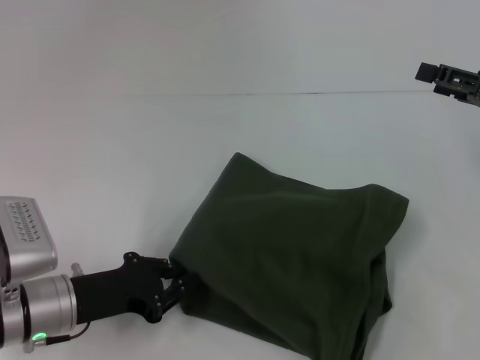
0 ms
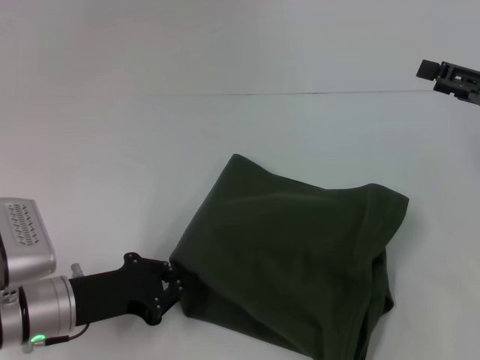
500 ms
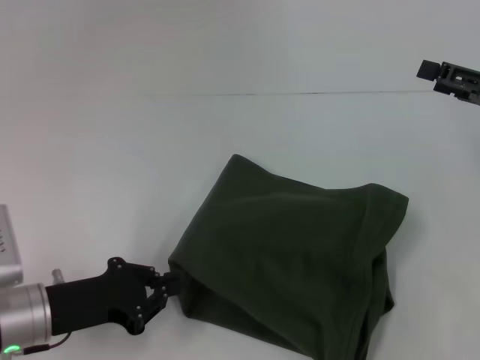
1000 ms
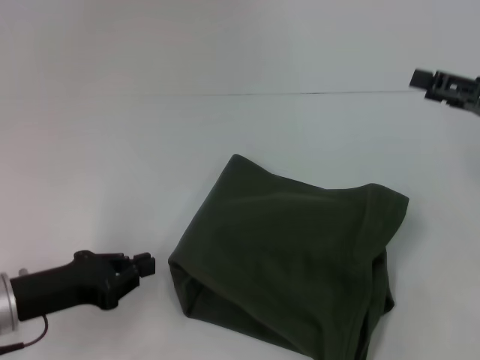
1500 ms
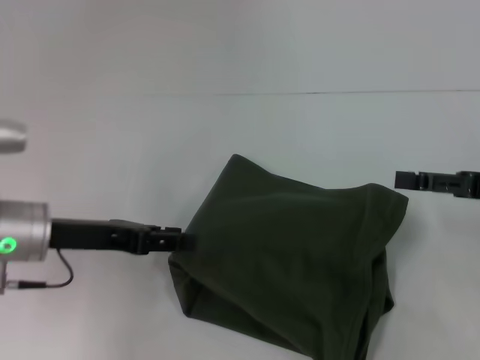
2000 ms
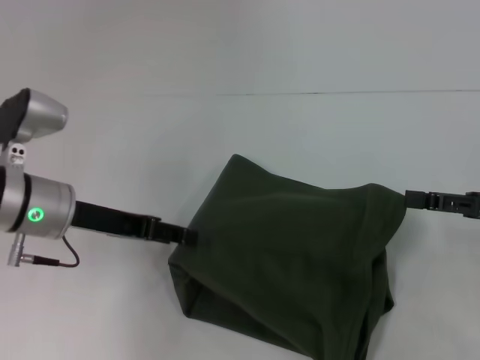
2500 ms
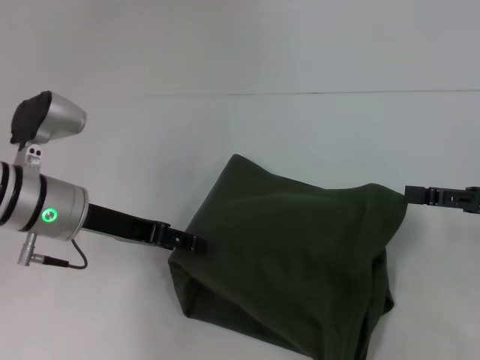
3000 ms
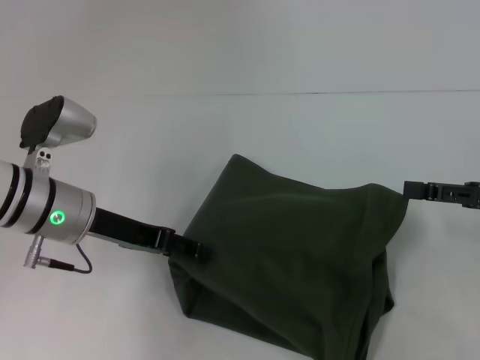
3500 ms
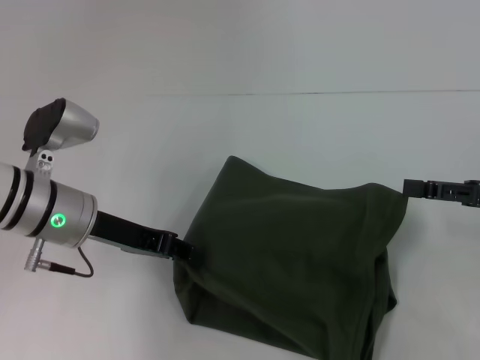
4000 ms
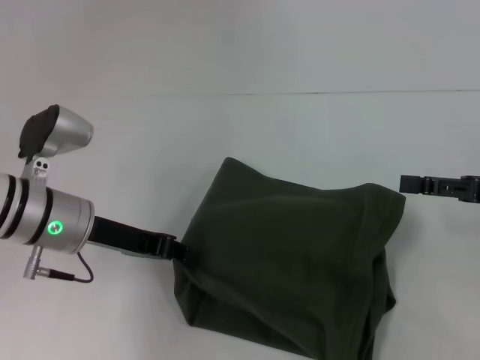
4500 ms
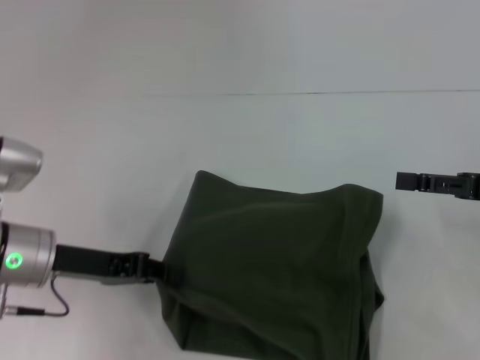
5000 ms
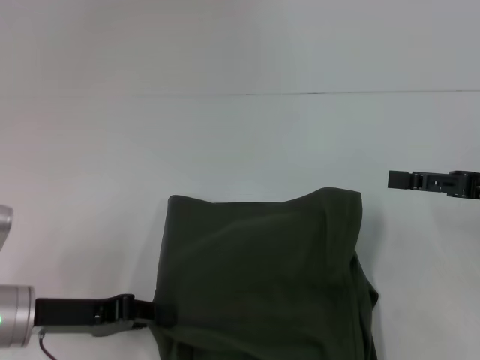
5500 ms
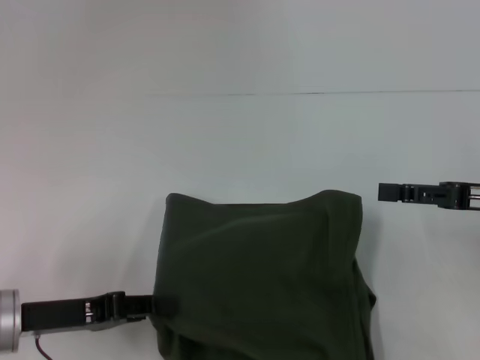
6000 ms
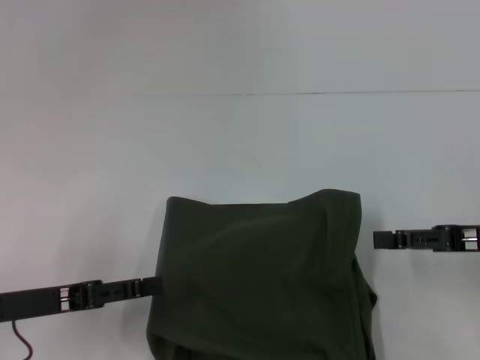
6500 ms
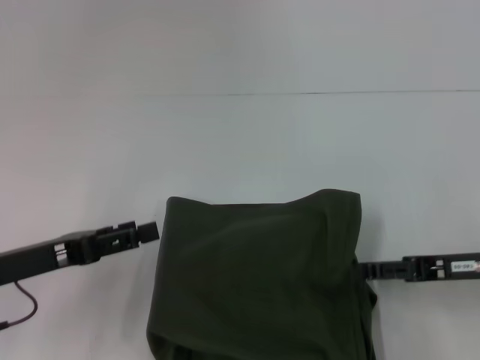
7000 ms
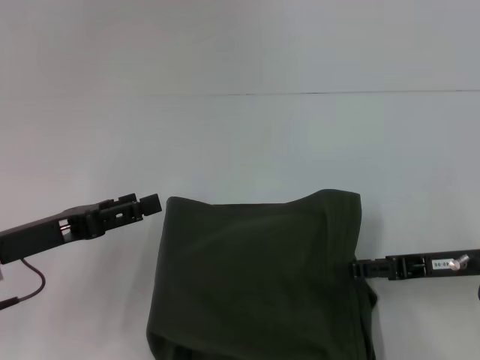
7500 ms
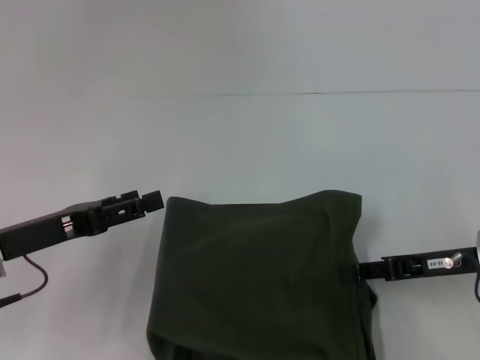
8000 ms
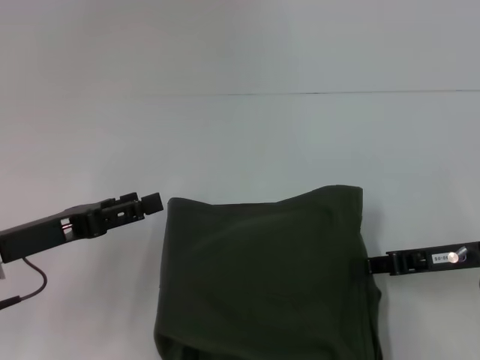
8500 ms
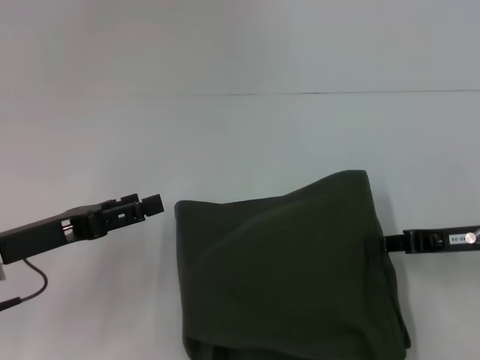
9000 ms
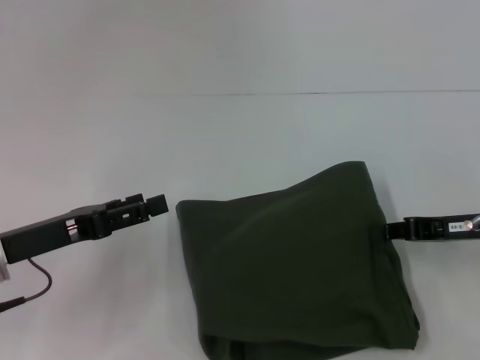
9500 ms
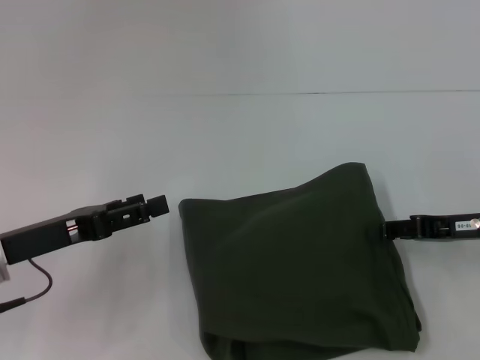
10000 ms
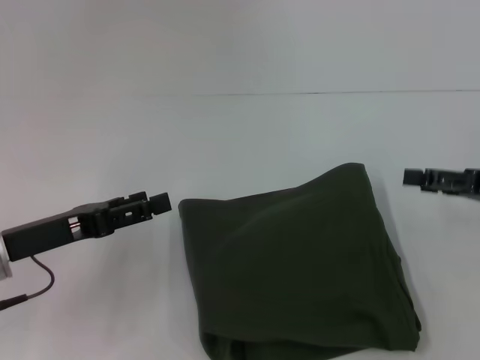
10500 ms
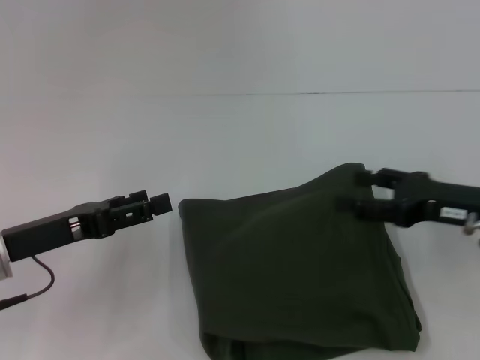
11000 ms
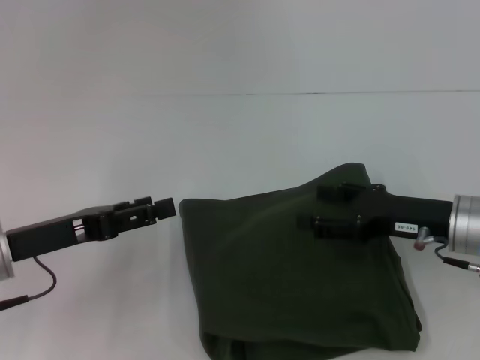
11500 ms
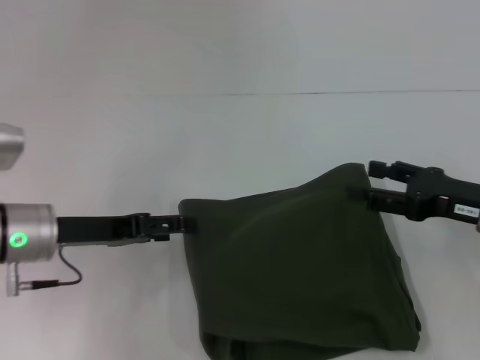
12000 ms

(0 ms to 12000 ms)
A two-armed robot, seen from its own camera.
0 ms - 2000 ms: The left gripper shifts roughly 10 cm upward and forward; the right gripper moves about 5 cm.
2000 ms - 4000 ms: The left gripper opens, then closes again.
4000 ms - 6000 ms: The left gripper heads backward and to the left, covering approximately 10 cm.
6000 ms - 8000 ms: The right gripper is displaced downward by some 5 cm. Meanwhile the left gripper opens its fingers.
8000 ms - 10000 ms: There are only small adjustments of the grippers.
10000 ms - 12000 ms: The left gripper shifts by some 5 cm; the right gripper swings left and right, approximately 10 cm each way, with 2 reversals, and opens up.

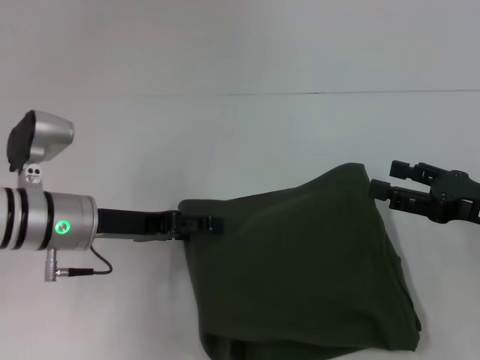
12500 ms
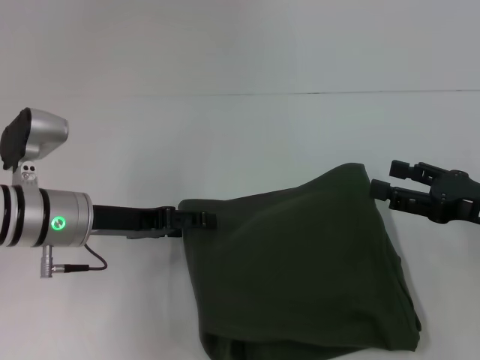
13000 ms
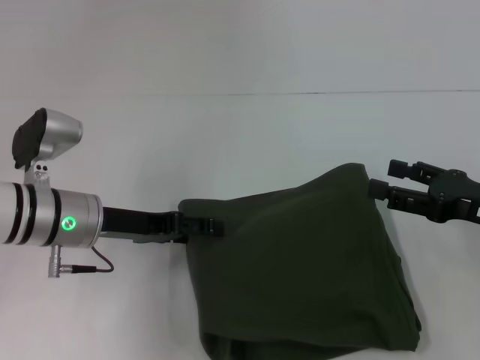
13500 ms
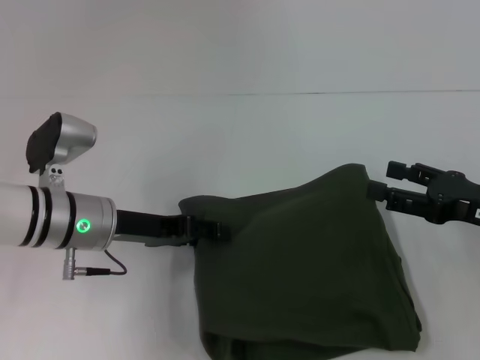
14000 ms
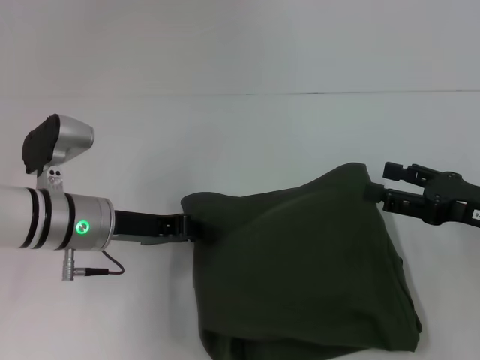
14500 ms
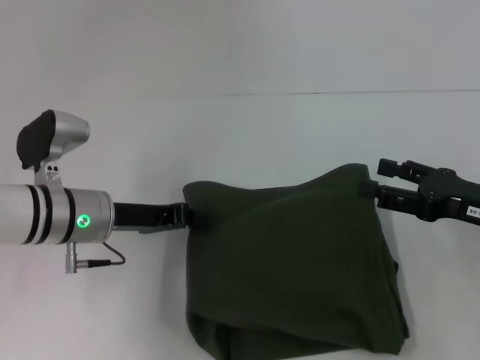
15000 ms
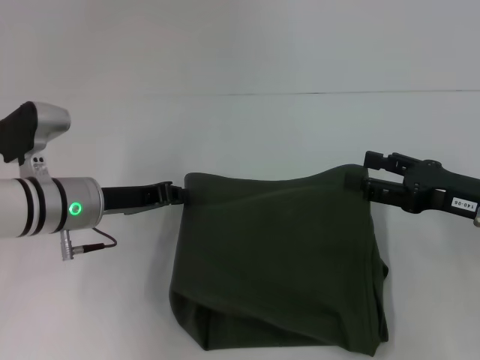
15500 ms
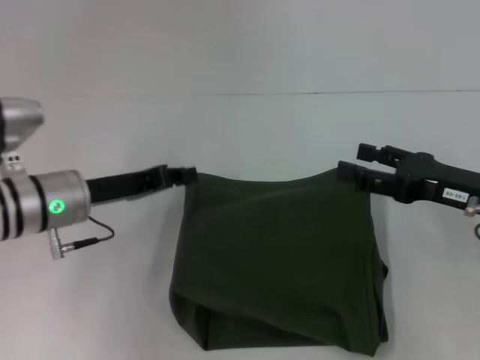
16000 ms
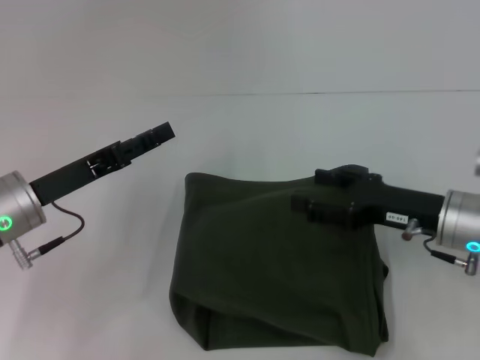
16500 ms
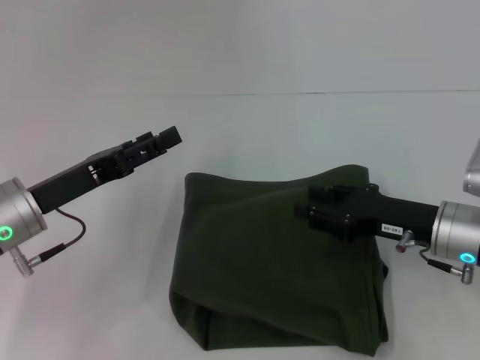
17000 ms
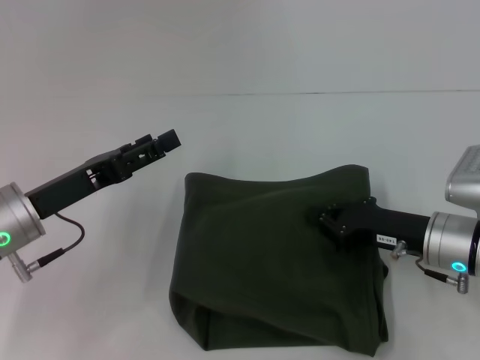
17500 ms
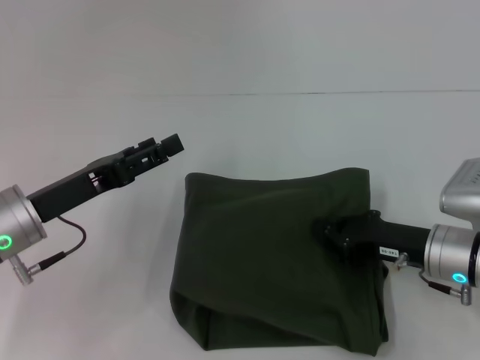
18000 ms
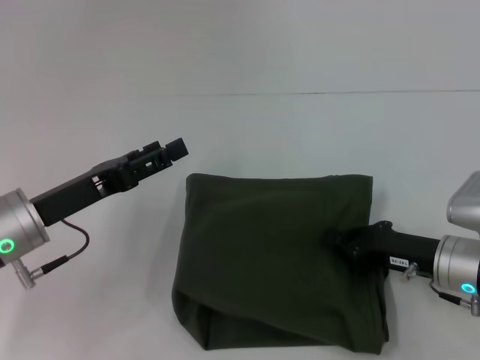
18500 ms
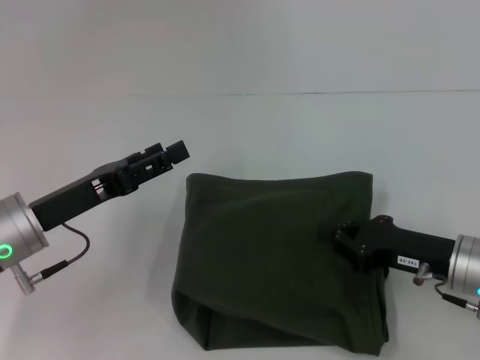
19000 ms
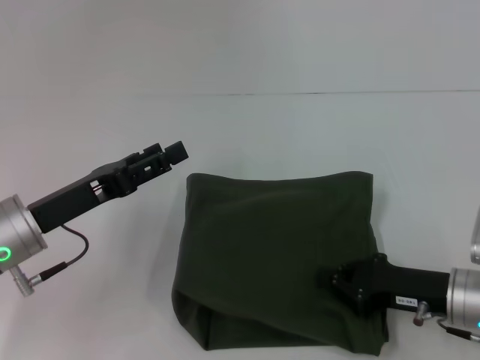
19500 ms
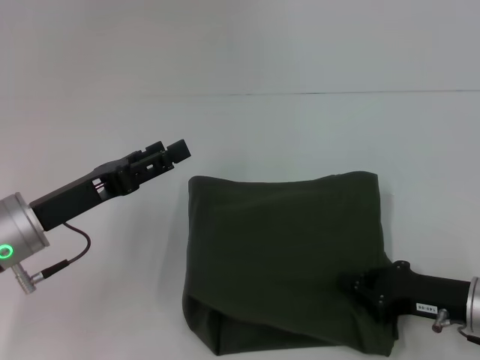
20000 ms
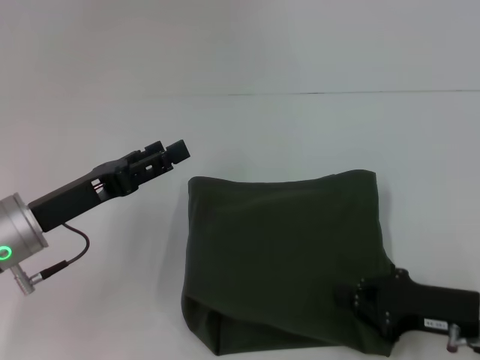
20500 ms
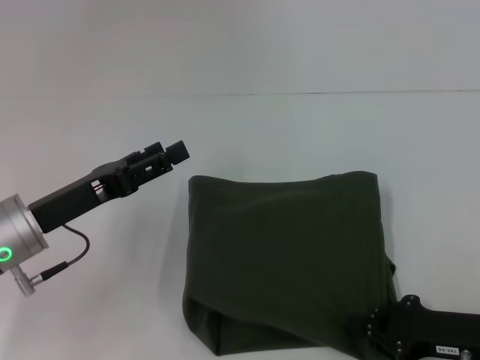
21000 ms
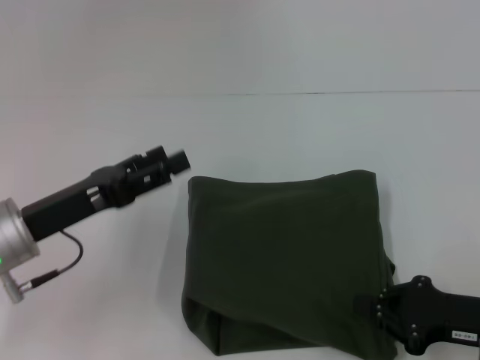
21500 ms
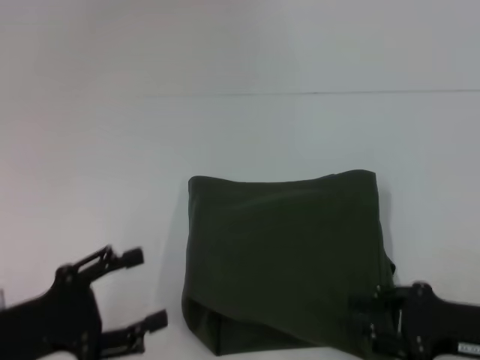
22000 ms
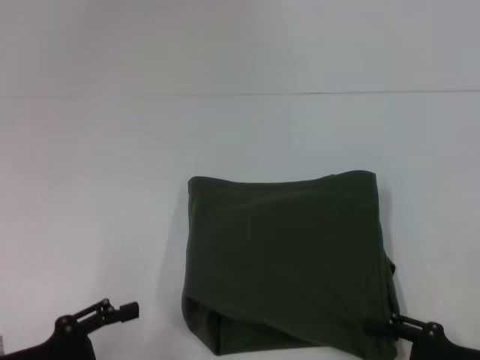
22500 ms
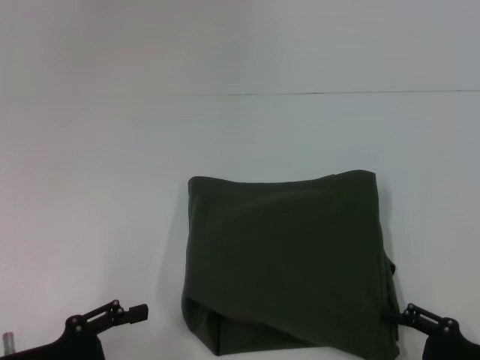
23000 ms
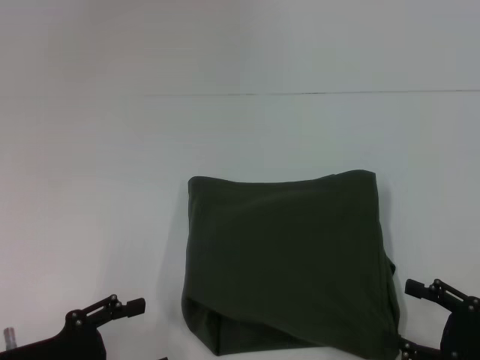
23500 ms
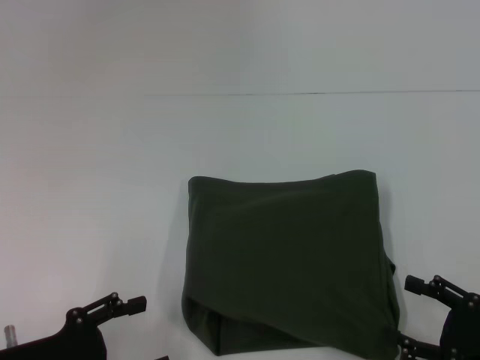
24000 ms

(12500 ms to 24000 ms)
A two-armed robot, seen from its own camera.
12500 ms - 14500 ms: The left gripper closes up.
14500 ms - 16500 ms: The two grippers go some 5 cm to the left.
16500 ms - 18500 ms: The right gripper shifts by some 5 cm, and closes its fingers, while the left gripper opens.
18500 ms - 20000 ms: There are only small adjustments of the grippers.
20000 ms - 22000 ms: The right gripper ends up about 5 cm from where it was. Meanwhile the left gripper heads backward, covering some 10 cm.
22000 ms - 24000 ms: The right gripper ends up some 5 cm from where it was, and opens its fingers.

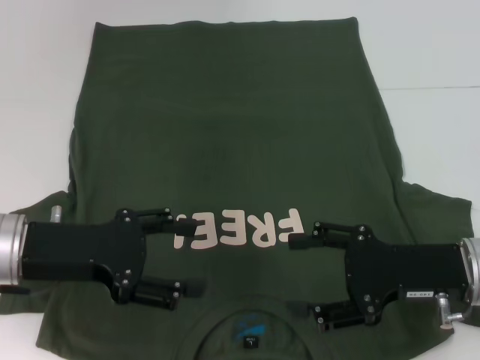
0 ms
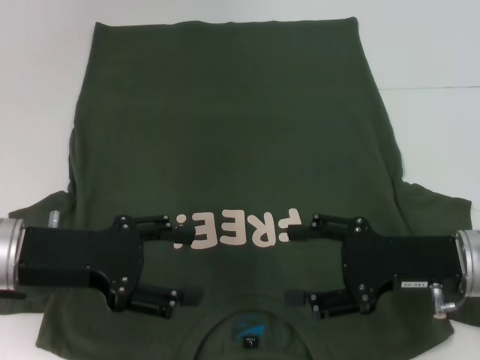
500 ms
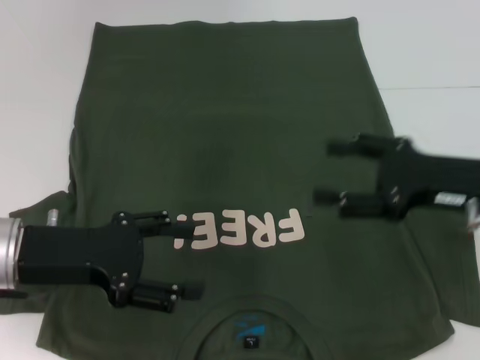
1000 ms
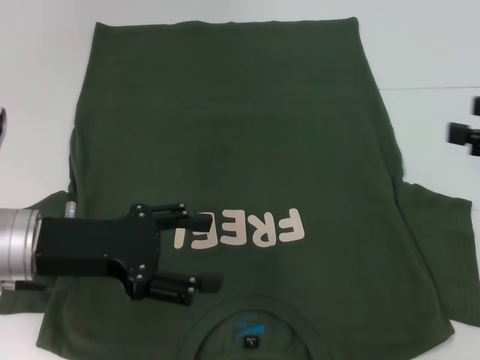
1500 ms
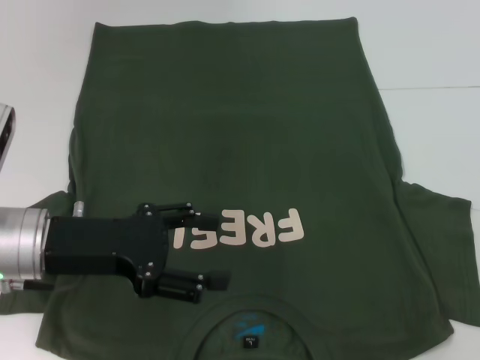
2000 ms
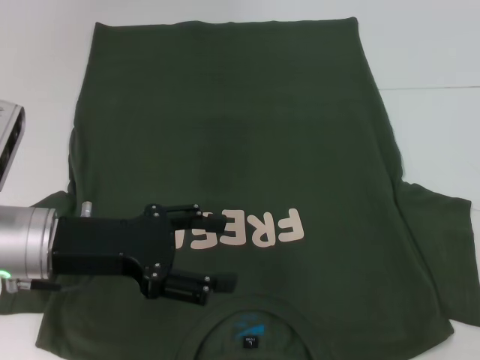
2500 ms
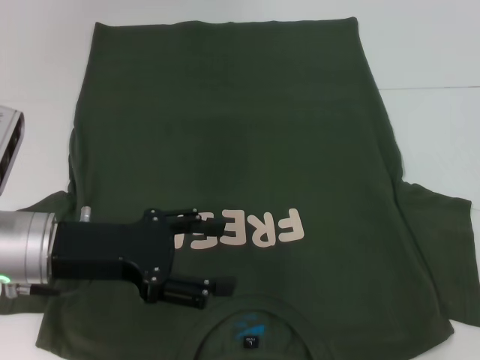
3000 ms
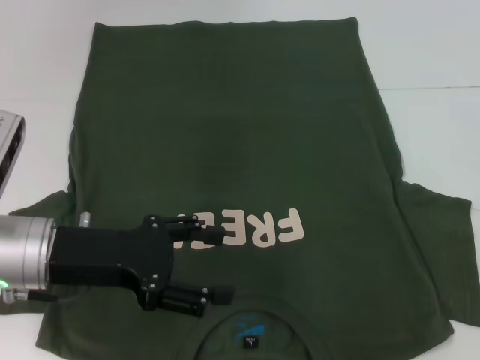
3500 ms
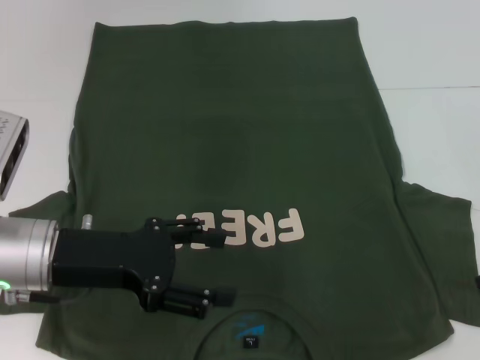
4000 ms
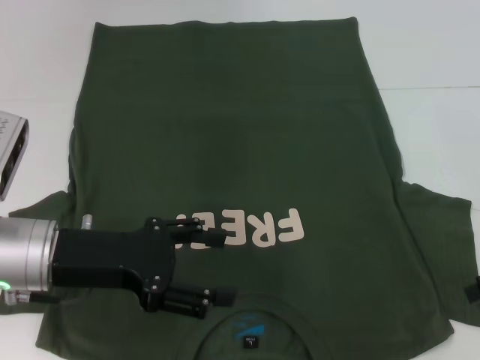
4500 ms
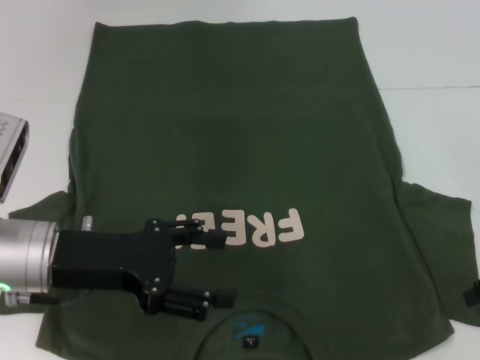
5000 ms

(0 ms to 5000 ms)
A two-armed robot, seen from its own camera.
0 ms - 2500 ms: The right gripper heads to the right and upward, covering some 20 cm.
2500 ms - 5000 ms: The right gripper moves forward and downward, about 10 cm.
